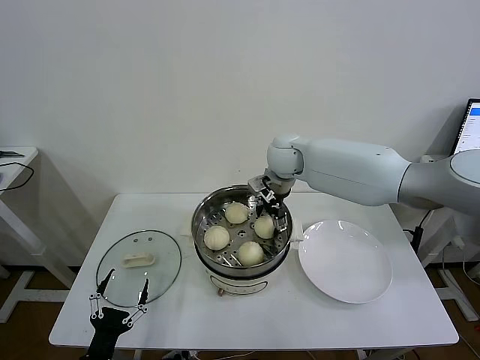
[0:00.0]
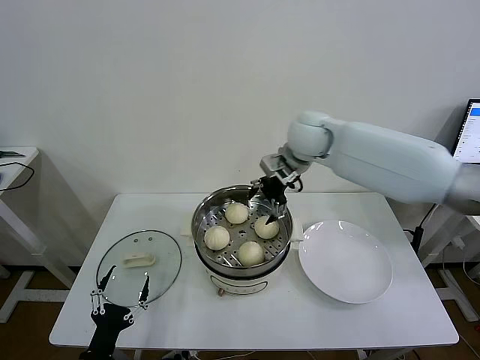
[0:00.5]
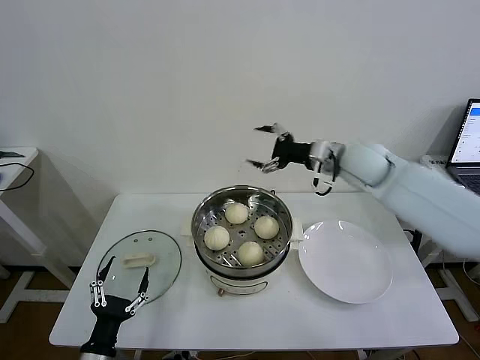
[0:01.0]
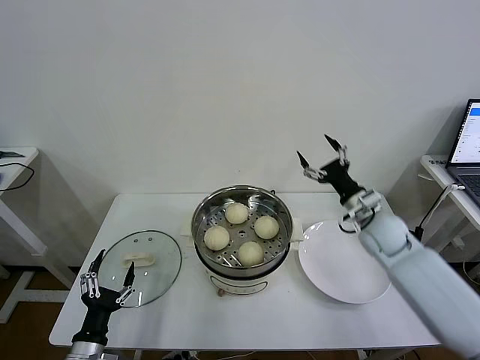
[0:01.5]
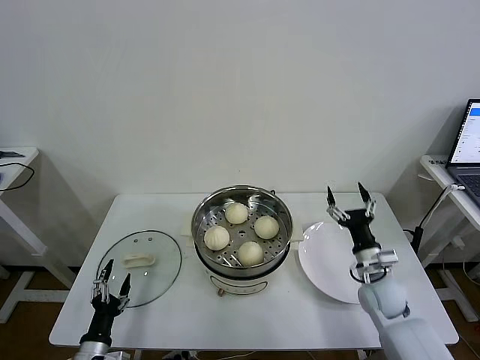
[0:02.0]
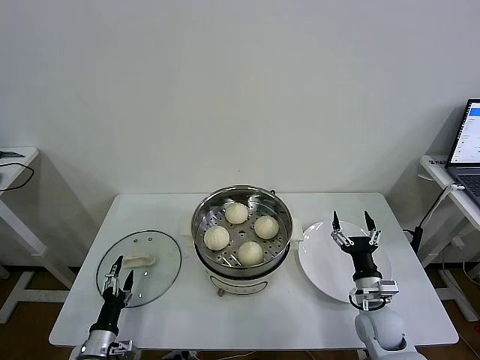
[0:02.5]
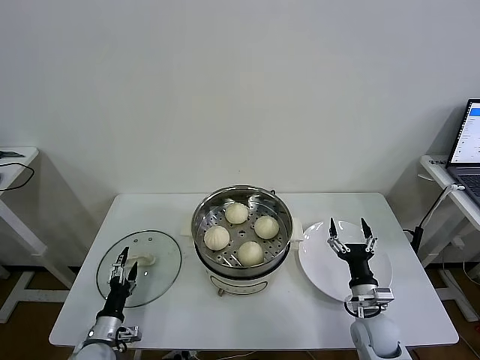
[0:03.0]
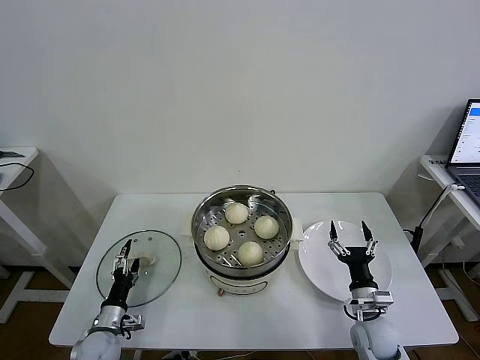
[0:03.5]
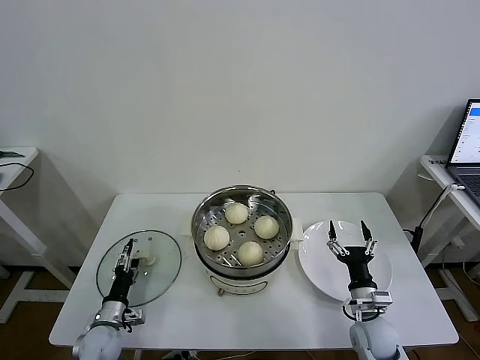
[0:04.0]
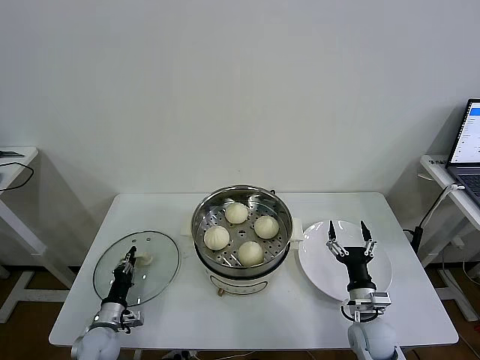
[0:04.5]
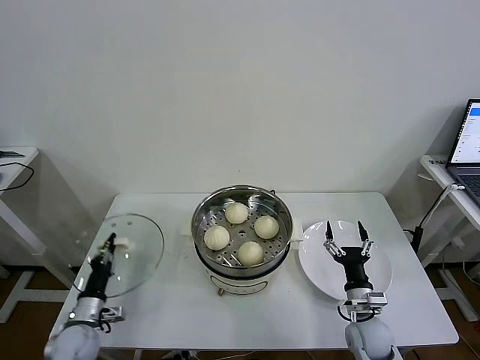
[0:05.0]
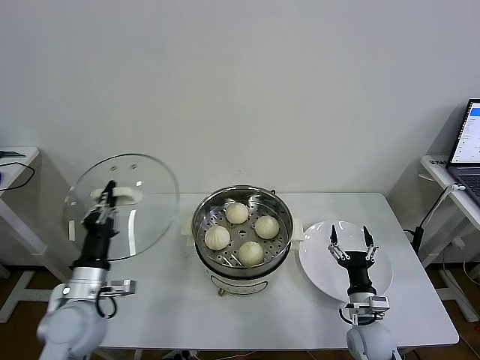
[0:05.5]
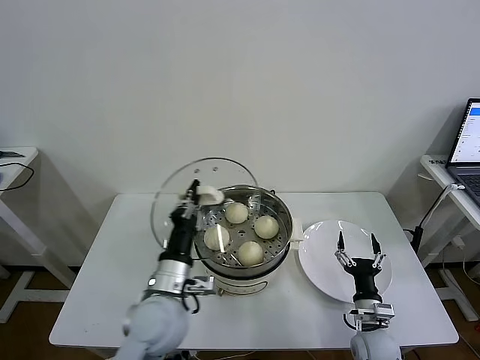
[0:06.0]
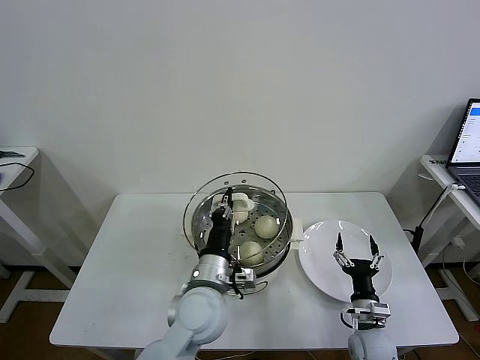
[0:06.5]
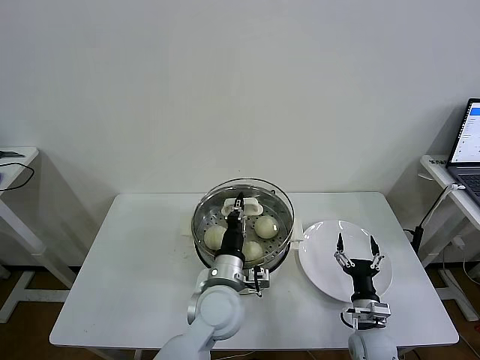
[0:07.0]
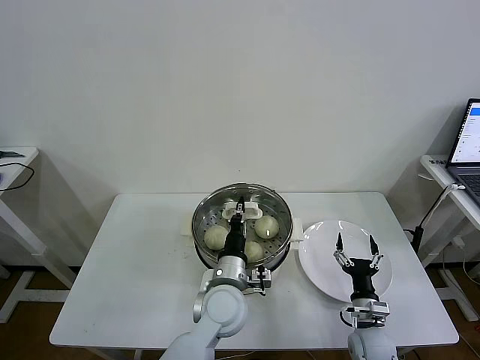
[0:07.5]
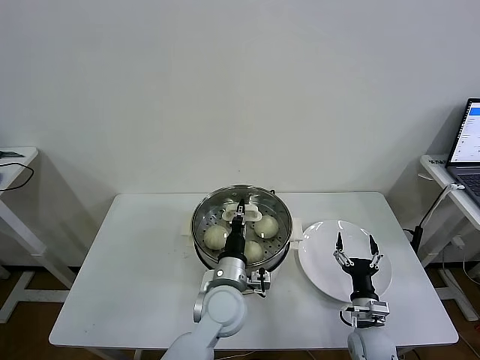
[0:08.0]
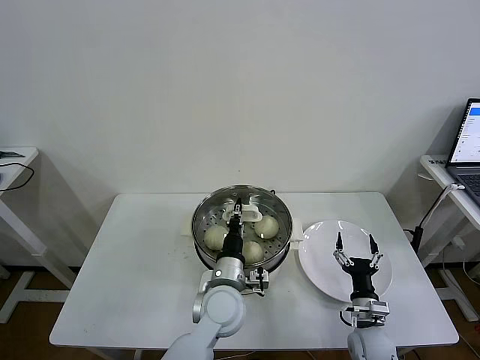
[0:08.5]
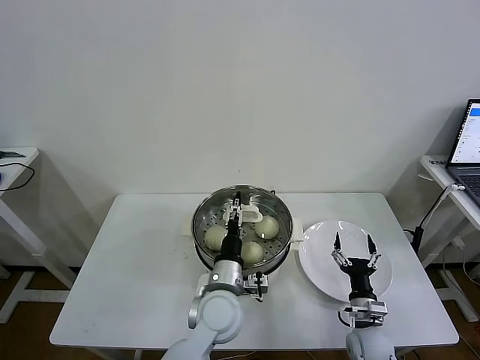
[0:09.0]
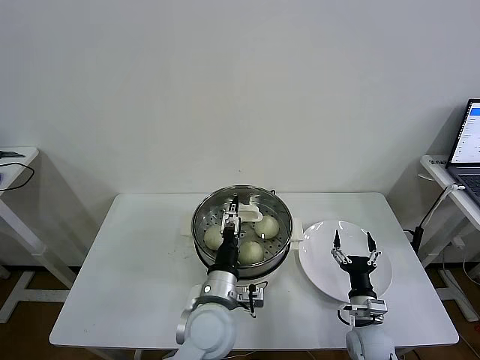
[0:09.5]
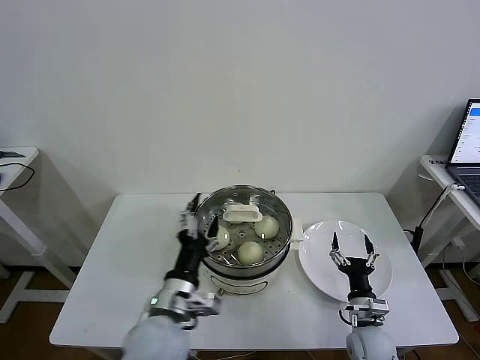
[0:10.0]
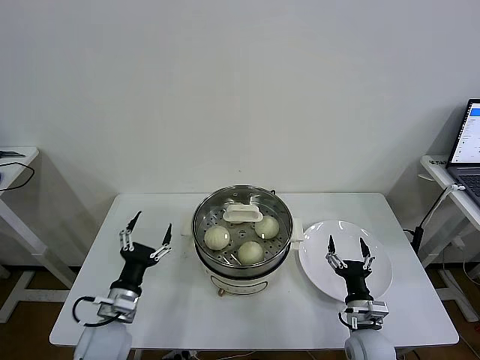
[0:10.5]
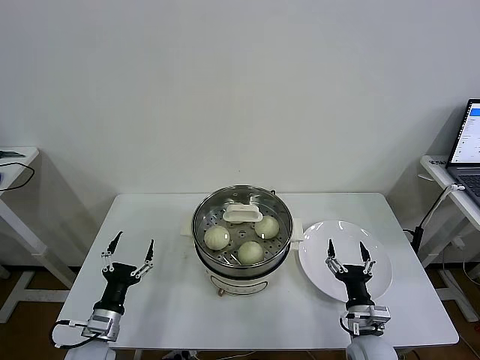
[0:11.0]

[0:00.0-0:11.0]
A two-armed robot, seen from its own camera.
Task of the whole recording: take steamed baozi put them in steamer then cover it.
Step, 0:00.5 to 0:04.5: Grasp the pot lid with left gripper.
Step, 0:05.0 to 0:08.5: Place the pot lid on the steamer with left gripper.
0:00.0 to 0:02.0: The left gripper shifts approximately 5 cm forward. Meanwhile the right gripper shifts about 40 cm downward, backward and to the right.
0:02.0 to 0:03.5: The right gripper heads backward and downward, covering approximately 10 cm. The left gripper goes roughly 10 cm forward.
0:03.5 to 0:05.5: The left gripper goes some 20 cm upward, and closes its fingers.
0:05.5 to 0:07.5: The left gripper shifts roughly 30 cm to the right.
0:07.5 to 0:09.0: The left gripper opens.
0:09.0 to 0:11.0: The left gripper is displaced to the left by approximately 25 cm.
